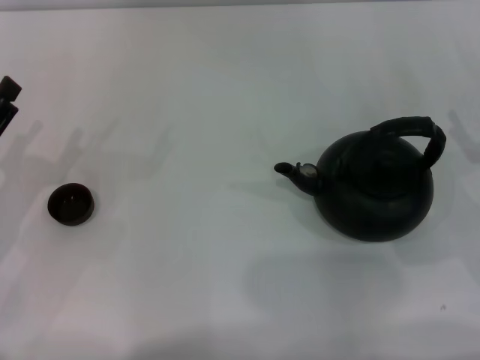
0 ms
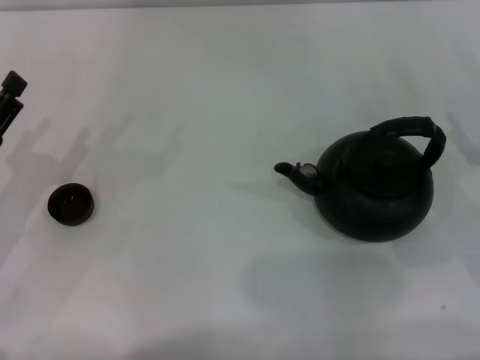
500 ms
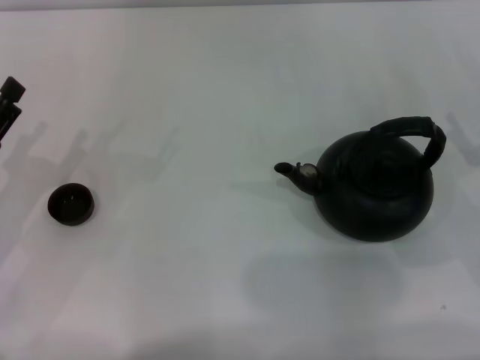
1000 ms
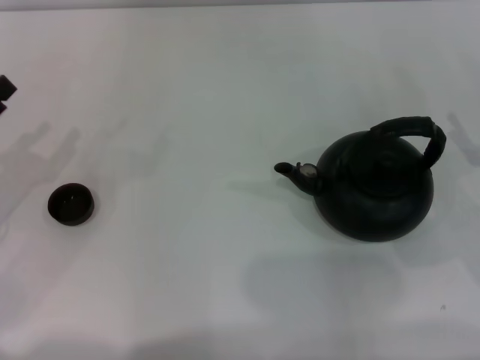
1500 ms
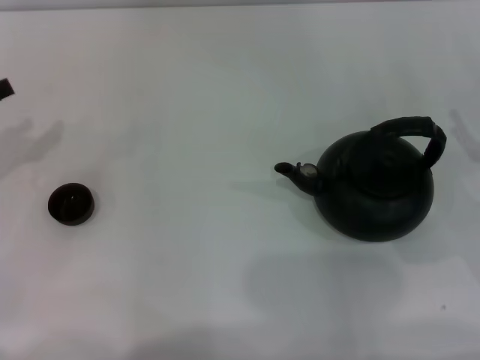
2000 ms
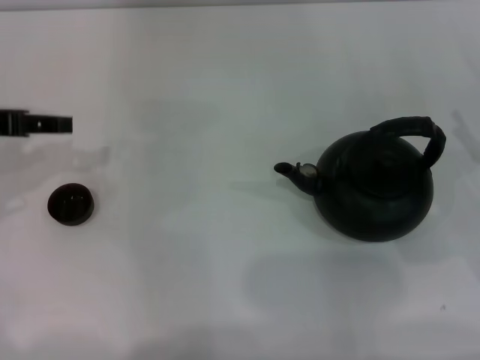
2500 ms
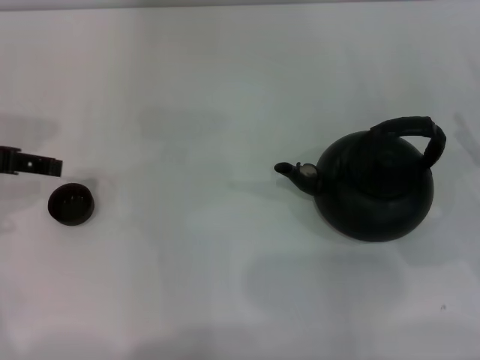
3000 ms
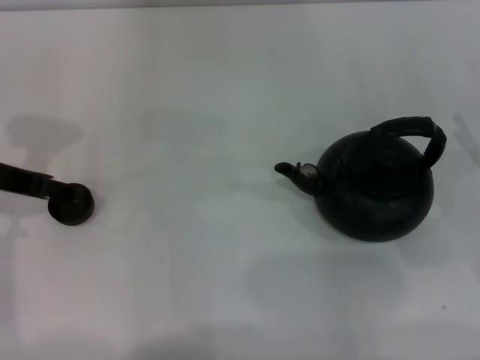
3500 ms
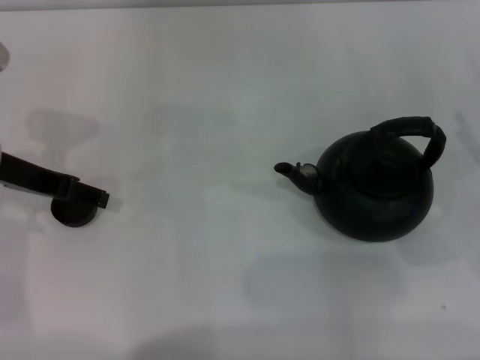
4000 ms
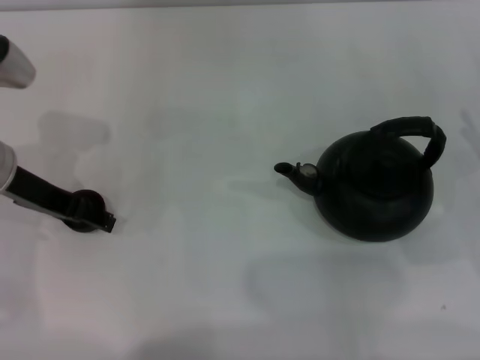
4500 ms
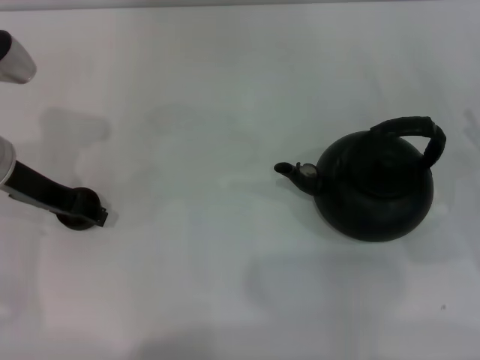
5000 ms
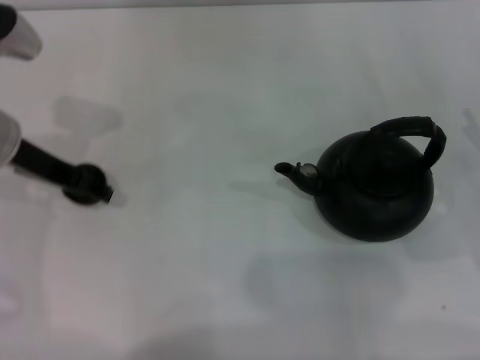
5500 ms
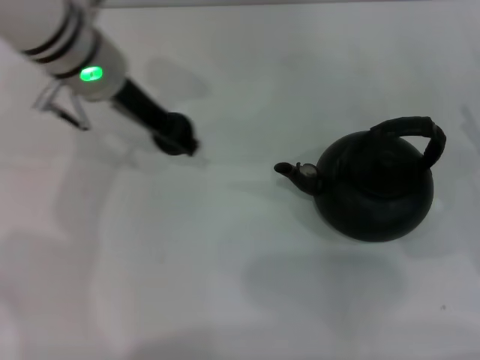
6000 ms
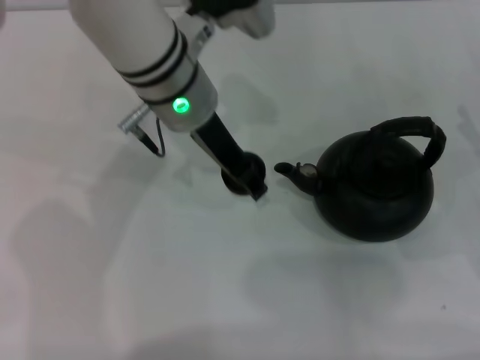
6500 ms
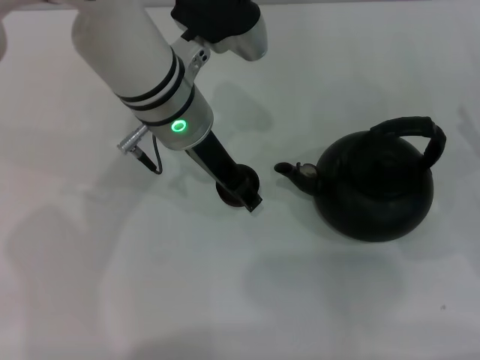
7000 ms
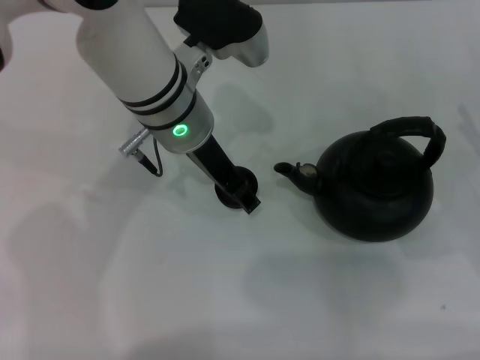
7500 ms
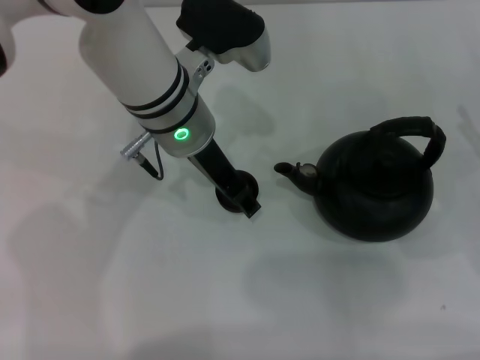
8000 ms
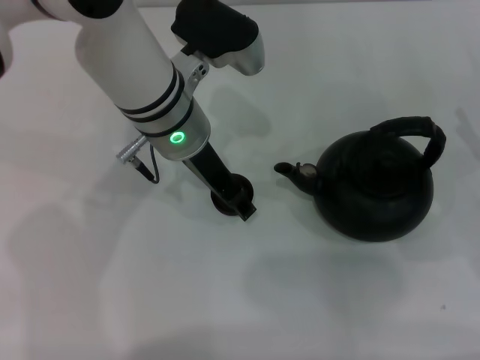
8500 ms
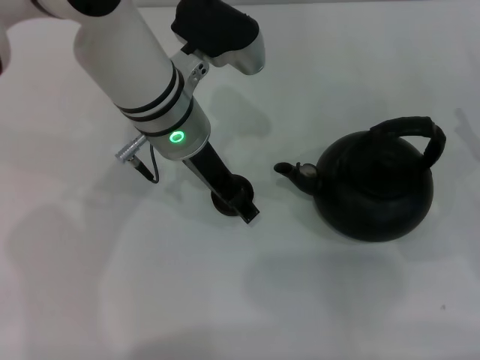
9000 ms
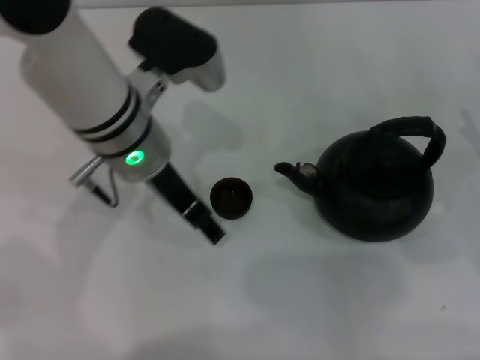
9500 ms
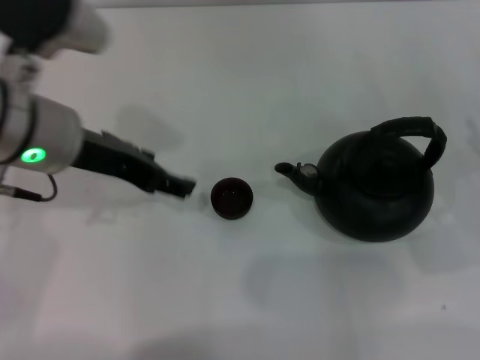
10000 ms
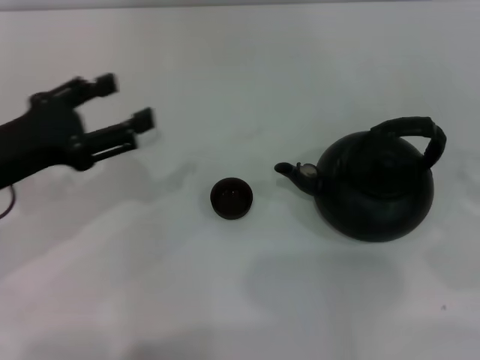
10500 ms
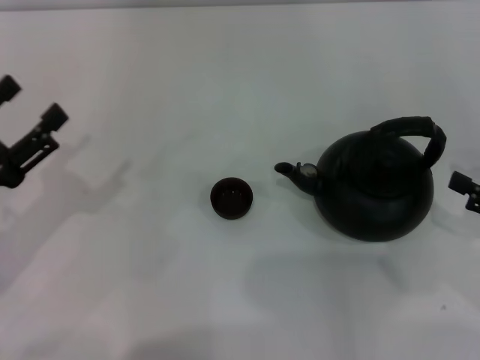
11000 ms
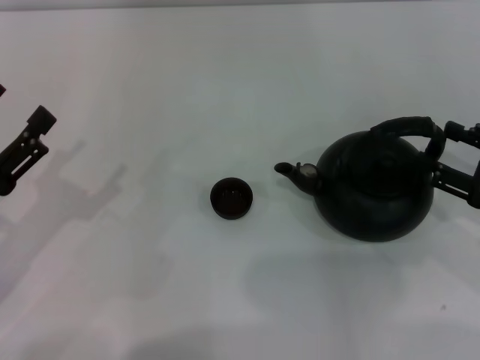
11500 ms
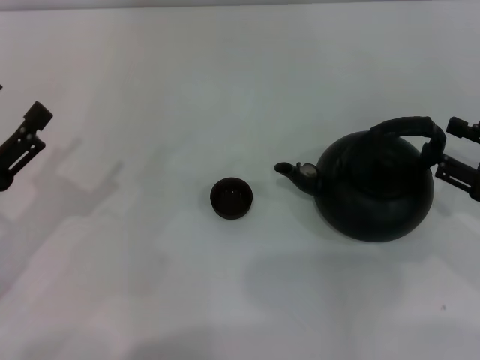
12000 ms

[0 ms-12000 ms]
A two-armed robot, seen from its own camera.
Task of the whole recording: Grasp the handle of the teapot with one hand and pour tea into the teacup.
Step, 0 ms to 5500 ms: Pick up the teacup with the left gripper.
Step, 6000 ms to 9500 ms: Place the teacup in the center of view with the left gripper.
2000 ms to 4000 ms: The left gripper shifts roughly 10 cm to the right, and opens up.
4000 ms to 6000 ms: The left gripper travels to the right and forward by roughly 15 cm, and closes.
6000 ms to 8000 ms: The left gripper moves to the right, some 5 cm.
8000 ms to 10000 ms: The left gripper heads to the left and backward, covering approximately 15 cm, and opens its fingers.
10000 ms to 12000 ms: The left gripper is displaced to the left, backward and downward by some 20 cm.

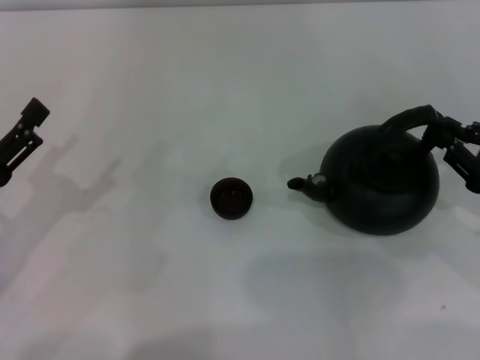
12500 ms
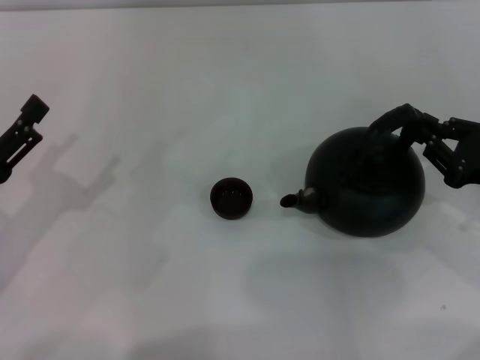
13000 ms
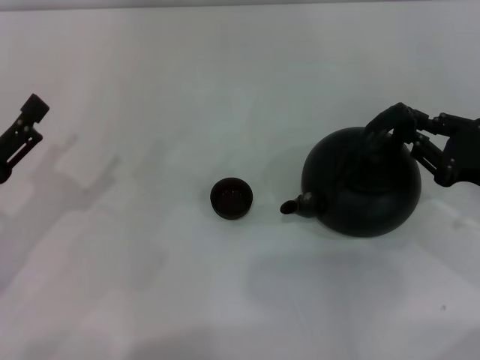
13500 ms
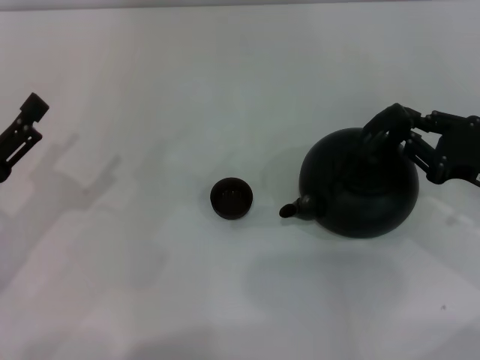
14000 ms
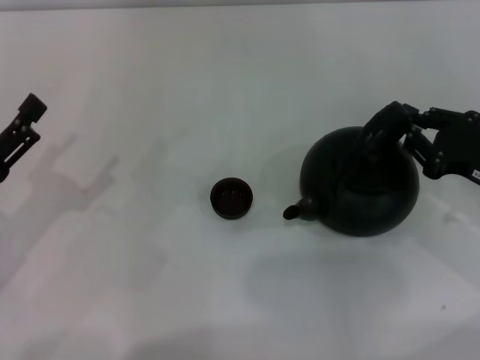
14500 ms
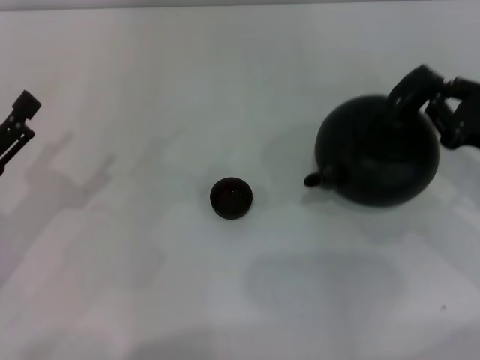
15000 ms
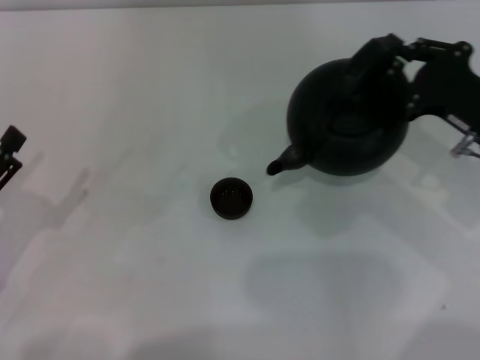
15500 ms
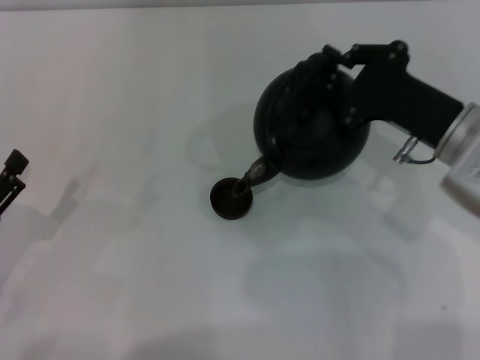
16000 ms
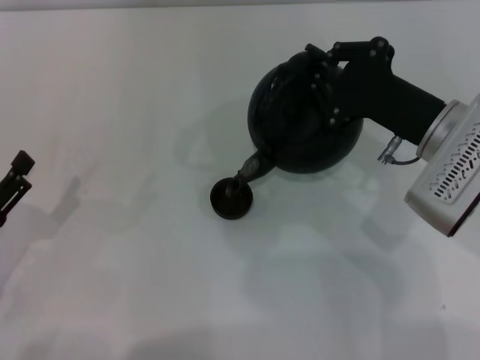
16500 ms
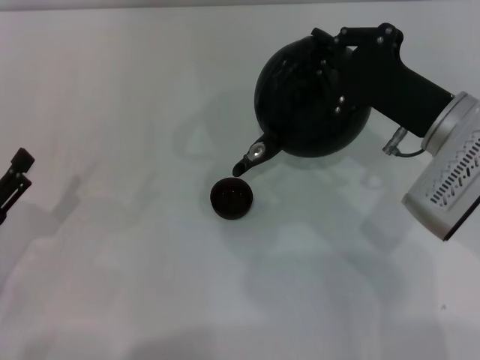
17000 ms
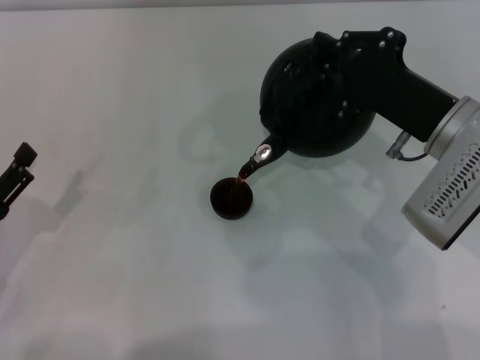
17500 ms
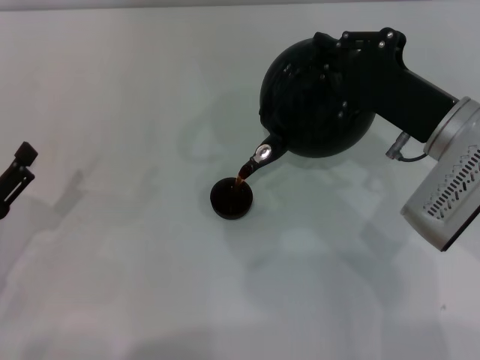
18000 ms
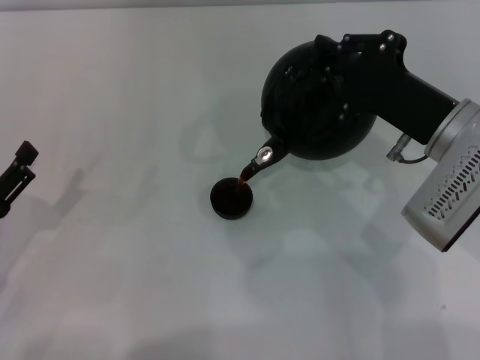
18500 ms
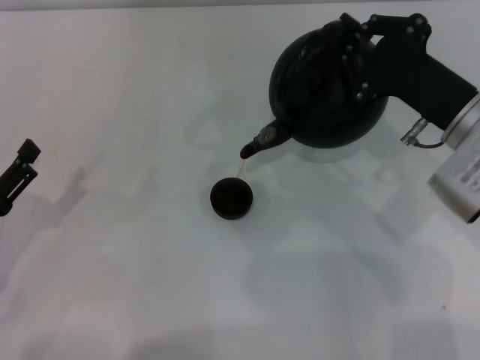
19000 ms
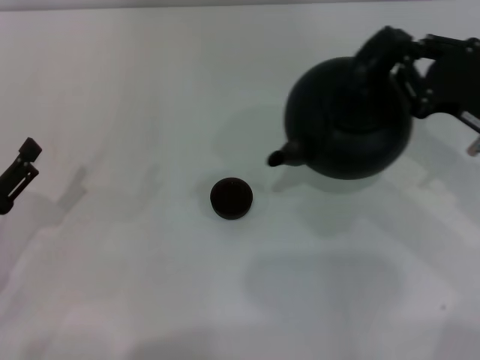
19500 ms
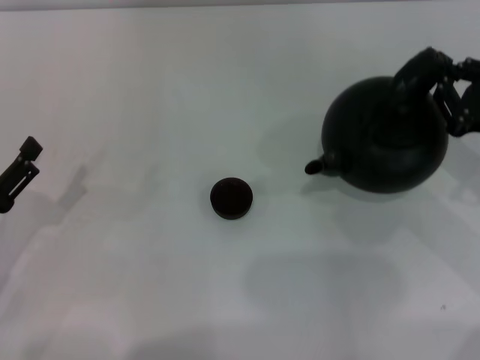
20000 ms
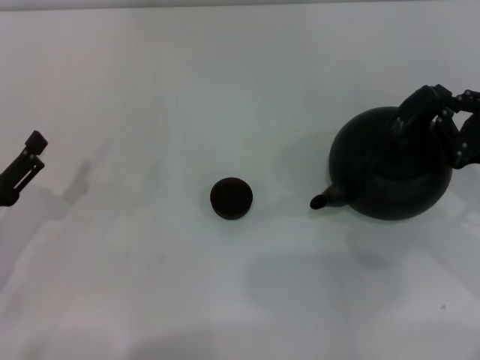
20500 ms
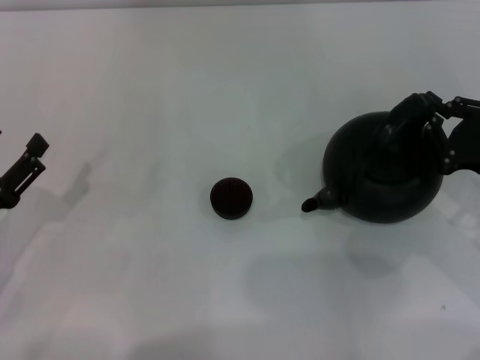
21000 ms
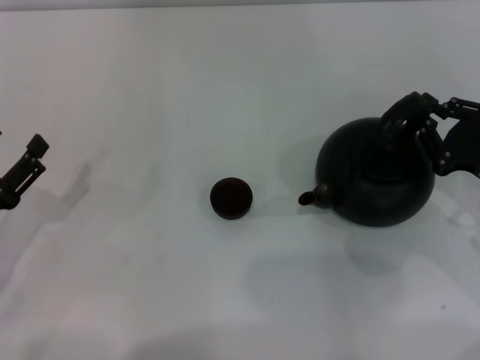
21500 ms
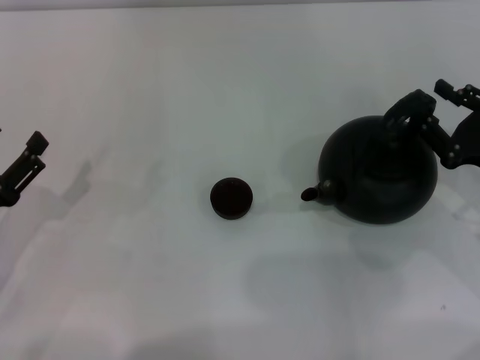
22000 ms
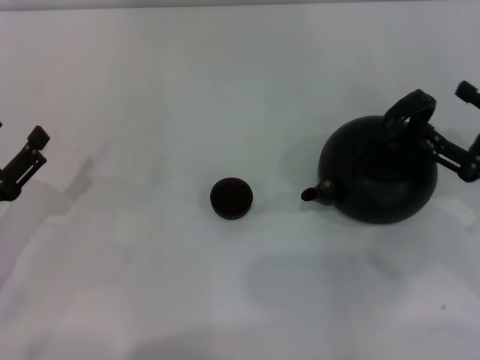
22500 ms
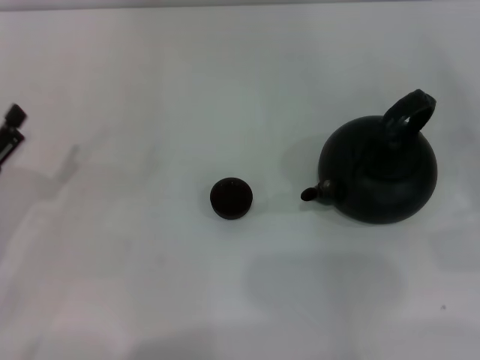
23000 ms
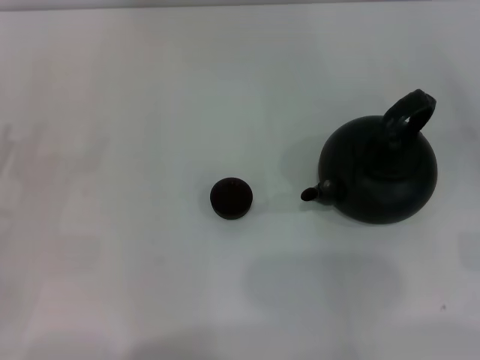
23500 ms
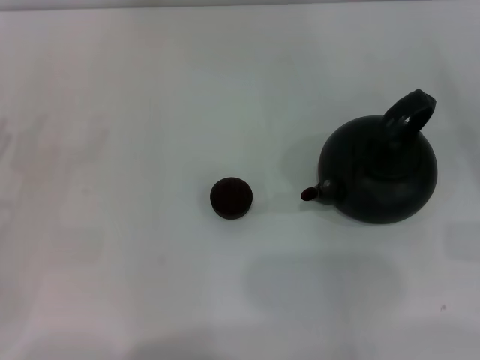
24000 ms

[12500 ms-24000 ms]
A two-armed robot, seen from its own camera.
Task of the whole recording: Grasp the handle of the teapot with one hand and pour tea into the teacup.
Step, 12500 ms to 15000 ms: Pick up the teapot with the right gripper.
Step, 15500 ms to 19000 ms: Pour tea into the teacup with the right gripper.
Step, 19500 ms to 22500 ms: Put down the teapot with the right gripper.
12500 ms to 14500 ms: The right gripper closes its fingers.
14500 ms to 16500 ms: The right gripper heads to the left and upward, covering about 10 cm. The left gripper changes place by approximately 5 cm.
16500 ms to 18500 ms: There are only small adjustments of the grippers.
18500 ms to 20000 ms: The right gripper moves to the right, approximately 10 cm.
20000 ms to 22000 ms: The grippers move only a little.
22000 ms to 24000 ms: The right gripper is displaced to the right by approximately 10 cm, and opens up. The left gripper ends up some 5 cm from where it was.

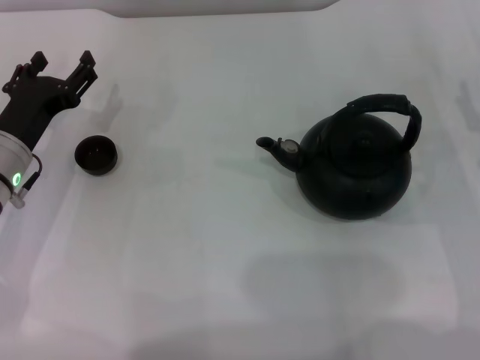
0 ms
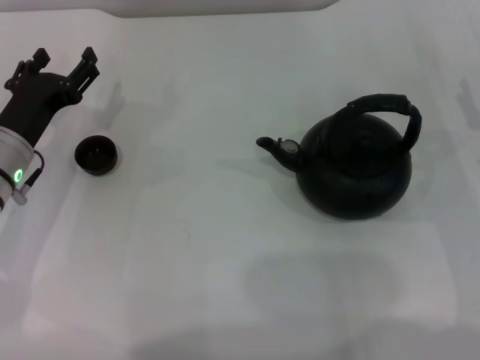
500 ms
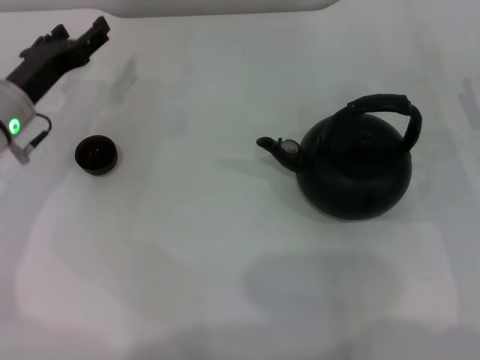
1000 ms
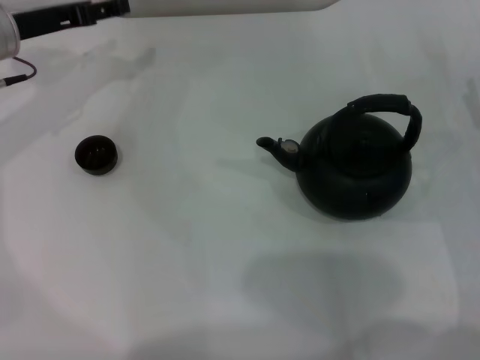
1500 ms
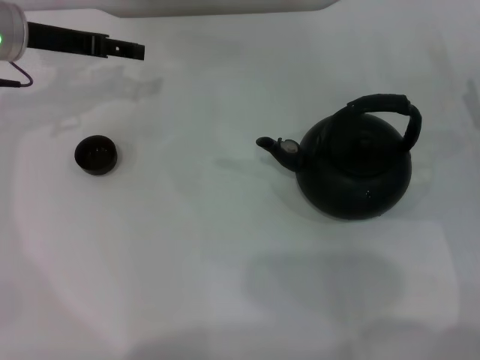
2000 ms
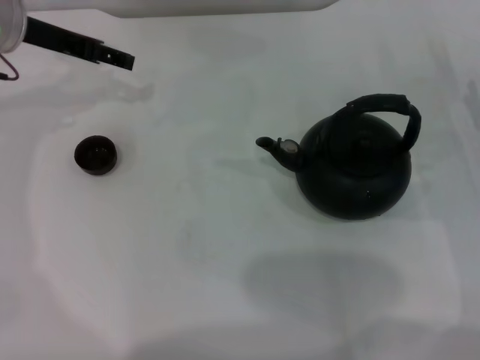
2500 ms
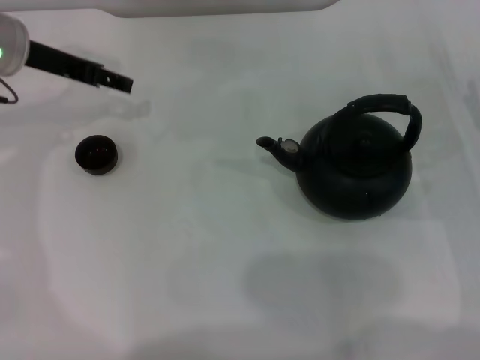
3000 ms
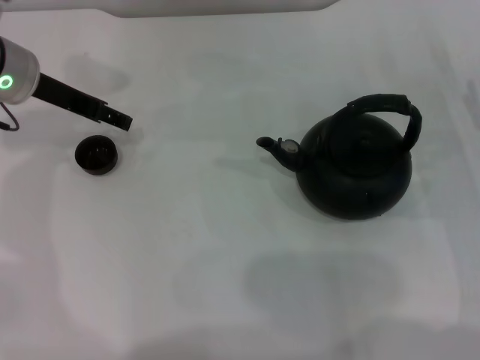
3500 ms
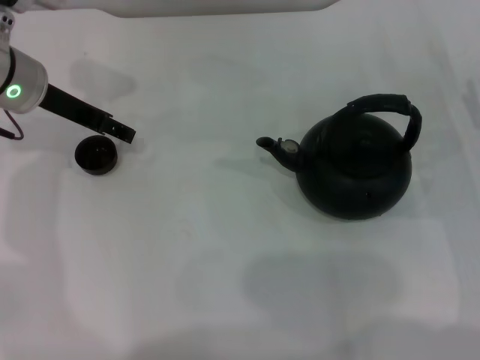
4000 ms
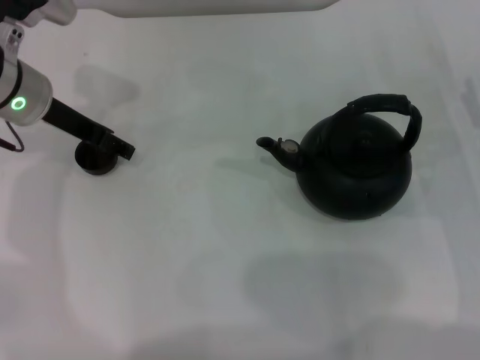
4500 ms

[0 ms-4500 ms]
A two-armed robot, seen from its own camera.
Task of the whole recording: Grasp the handle of the teapot with one hand and pour tea into the teacup.
0 ms to 2000 ms: The left gripper travels forward and upward by roughly 15 cm.
2000 ms to 4500 ms: The left gripper shifts by some 5 cm.
